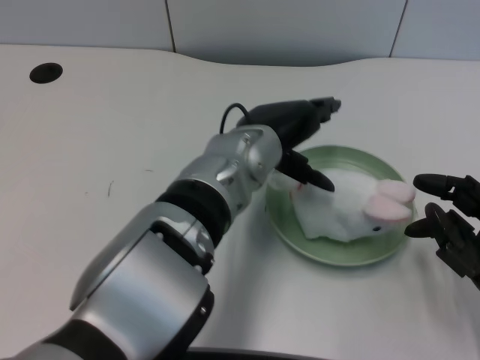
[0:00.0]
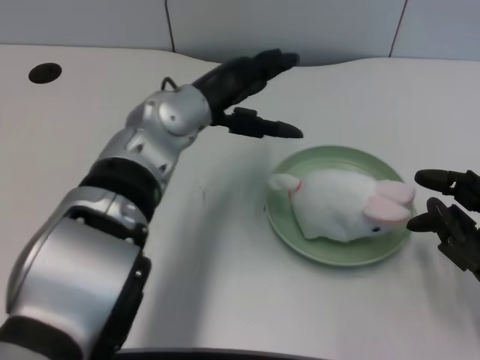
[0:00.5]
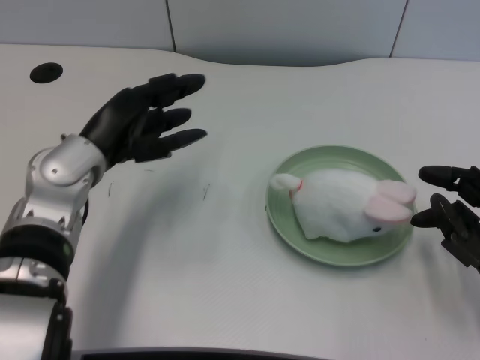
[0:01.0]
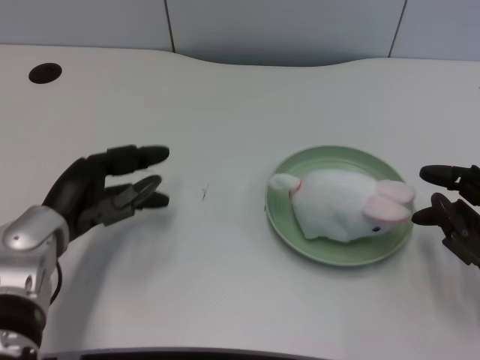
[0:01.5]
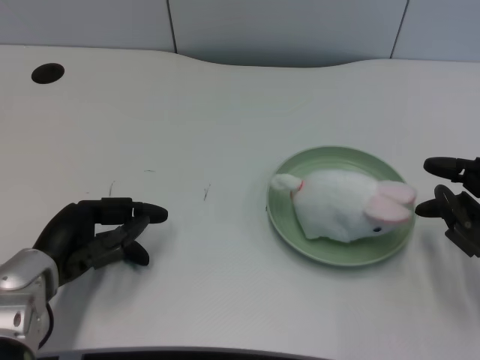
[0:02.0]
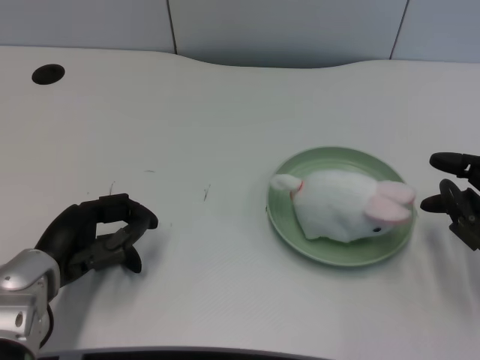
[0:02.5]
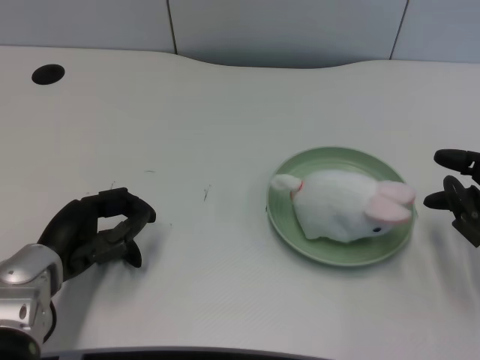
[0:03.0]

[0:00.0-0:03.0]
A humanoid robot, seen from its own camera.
Task of the whole recording: pick up the rabbit doll from the table and place it on the plate.
0:00.0 to 0:01.5: The left hand shifts roughly 20 cm to the left.
0:01.5 to 0:03.0: The hands move only a little.

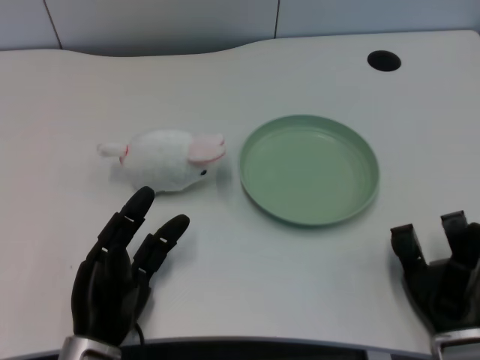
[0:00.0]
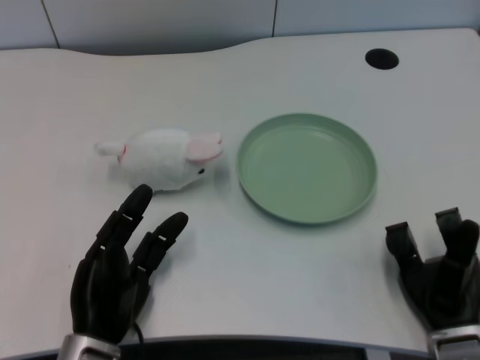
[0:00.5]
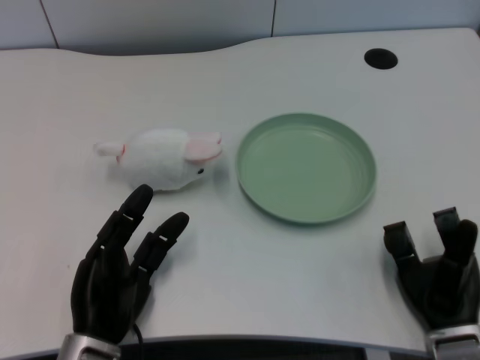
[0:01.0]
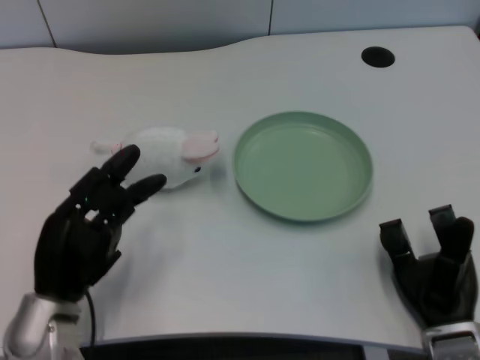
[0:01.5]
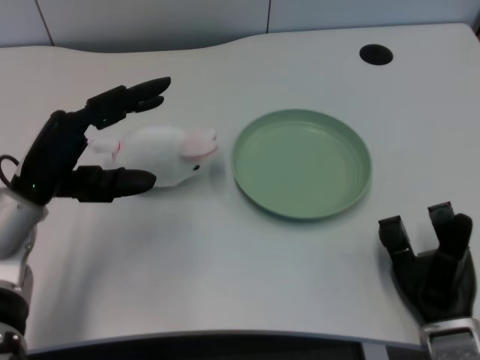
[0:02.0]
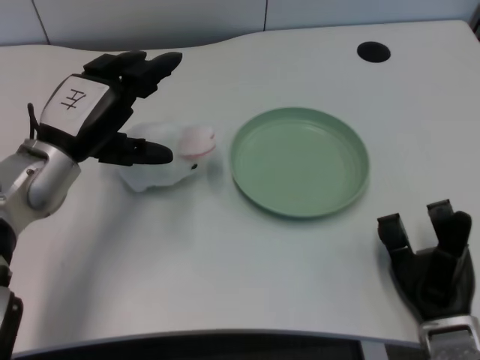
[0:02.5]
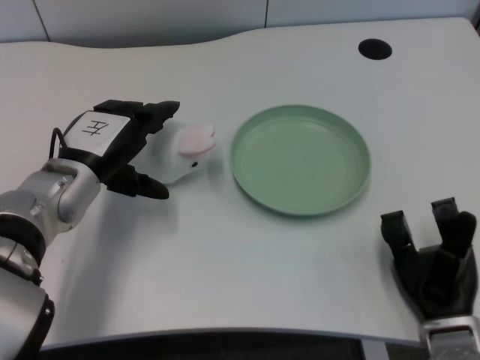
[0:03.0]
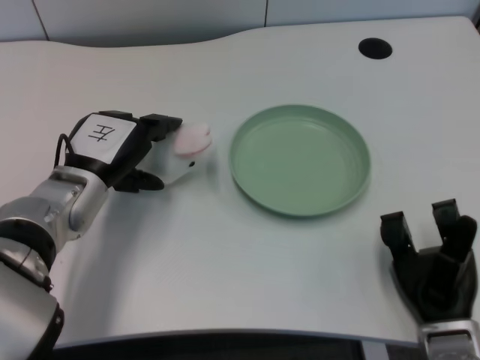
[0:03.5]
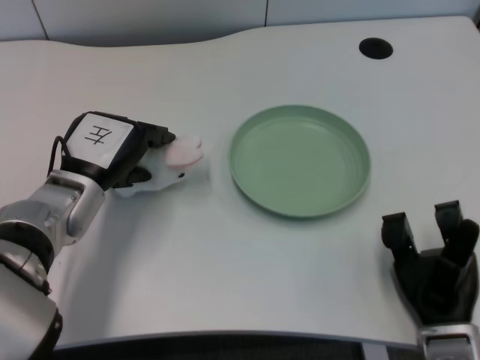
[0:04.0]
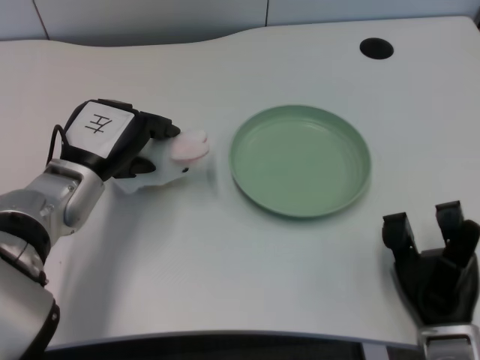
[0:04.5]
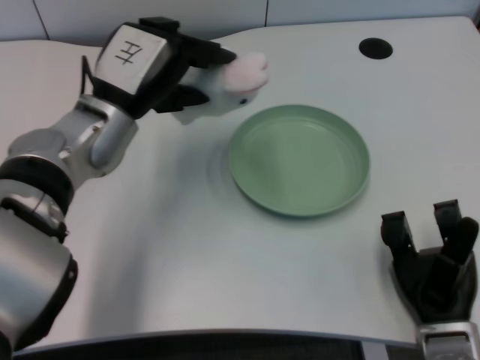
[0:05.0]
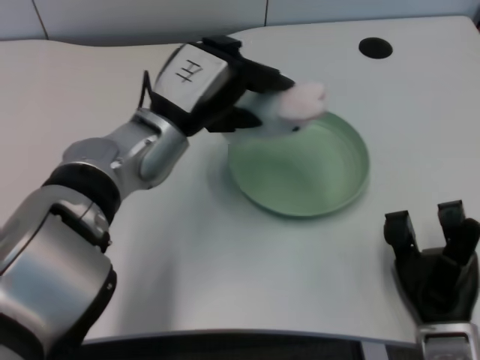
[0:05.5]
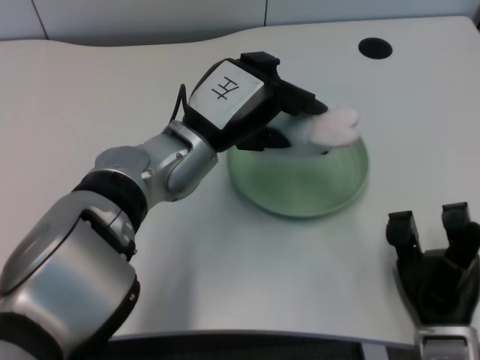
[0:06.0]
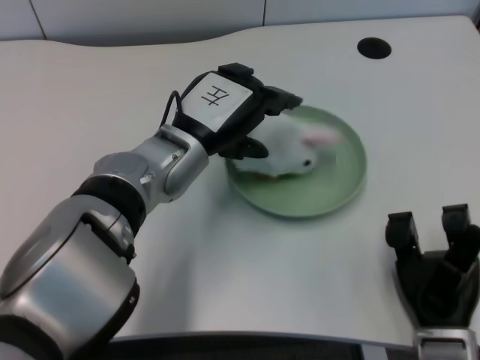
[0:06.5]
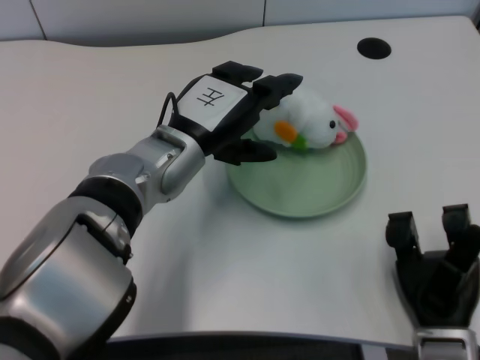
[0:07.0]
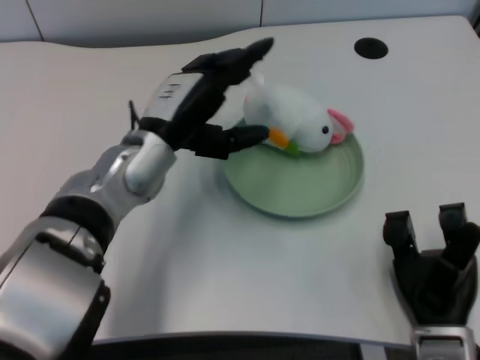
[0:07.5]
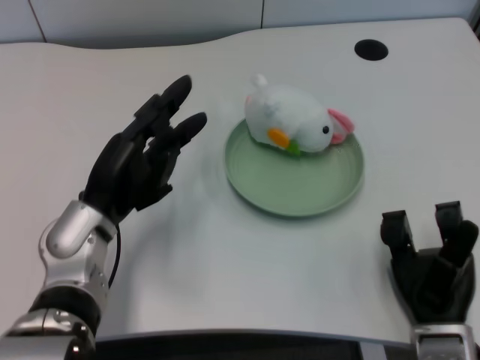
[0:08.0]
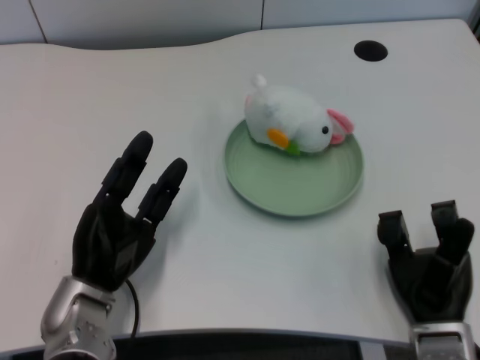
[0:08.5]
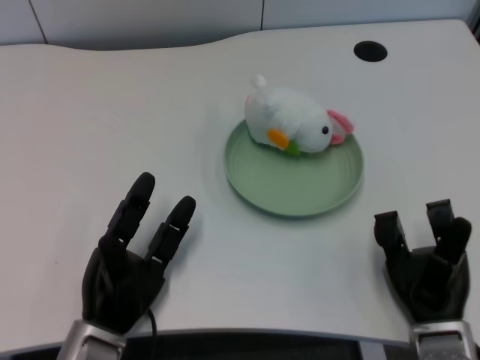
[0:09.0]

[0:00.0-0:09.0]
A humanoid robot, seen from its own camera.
Task of the whole recording: pick up the rabbit doll from the table and place it on the plate.
Step, 0:01.5 to 0:04.5: Grasp the rabbit doll with the left gripper.
Step, 0:05.0 to 0:06.5: Place the rabbit doll into the plate with the left gripper.
0:02.0 to 0:04.5: The left hand ends up approximately 5 cm from where it was.
0:04.5 to 0:07.0: The left hand moves to the right, some 10 cm.
0:07.0 to 0:09.0: The left hand heads downward, backward and to the left, covering roughly 20 cm.

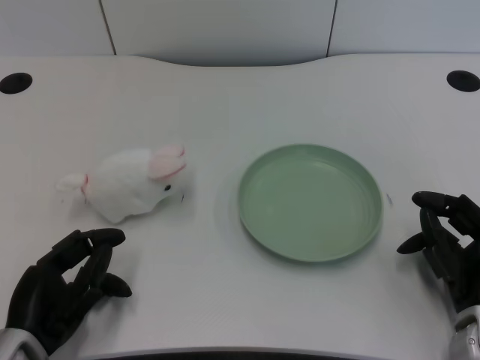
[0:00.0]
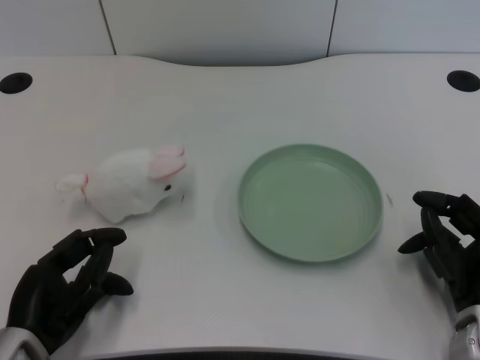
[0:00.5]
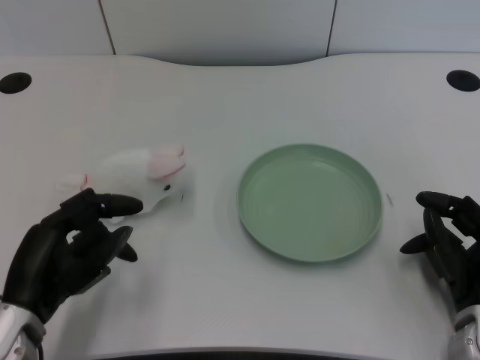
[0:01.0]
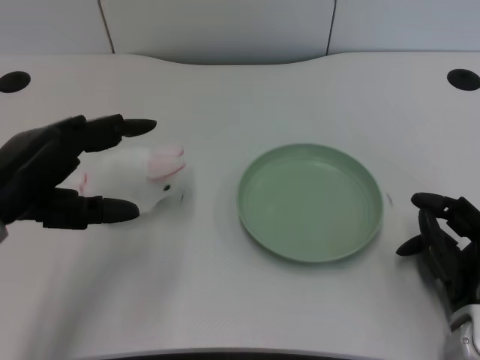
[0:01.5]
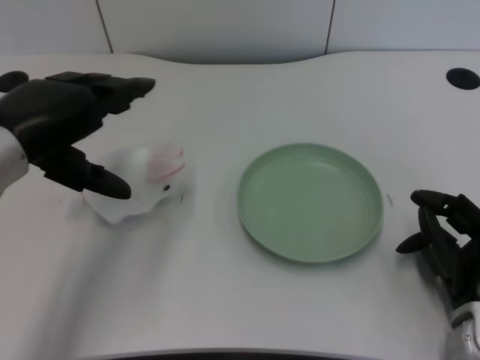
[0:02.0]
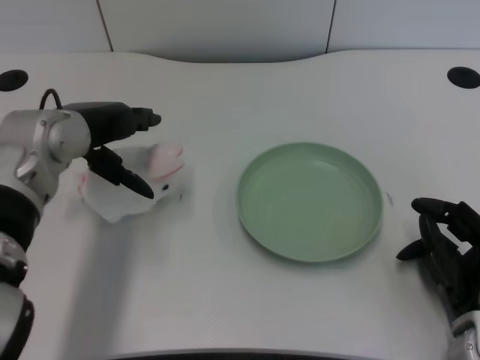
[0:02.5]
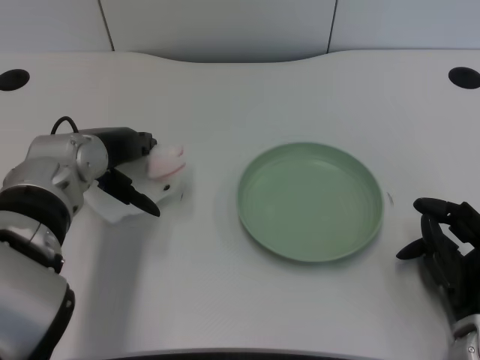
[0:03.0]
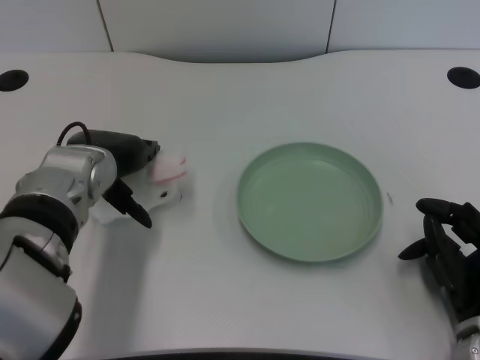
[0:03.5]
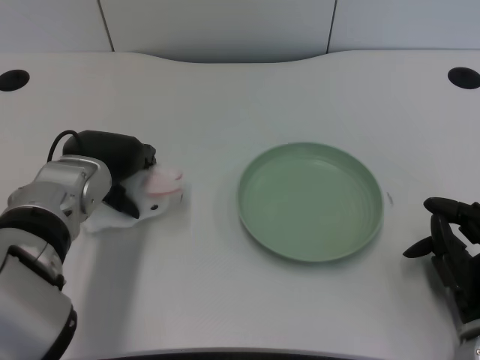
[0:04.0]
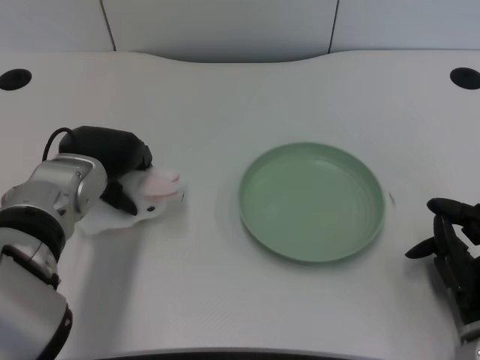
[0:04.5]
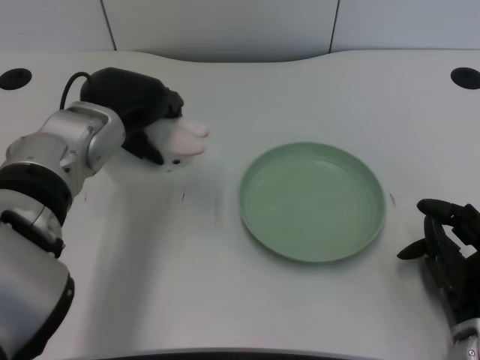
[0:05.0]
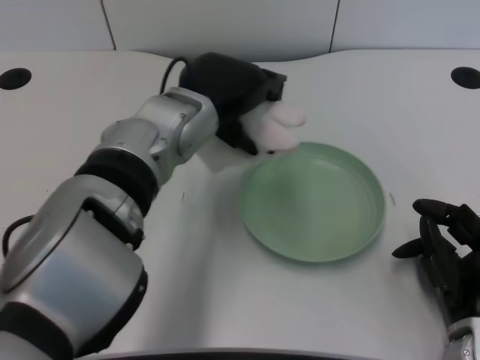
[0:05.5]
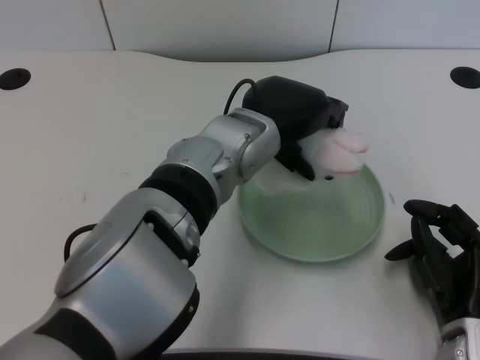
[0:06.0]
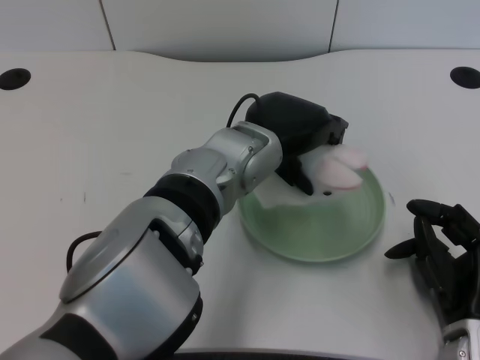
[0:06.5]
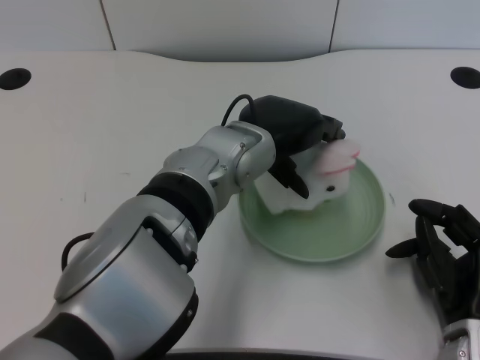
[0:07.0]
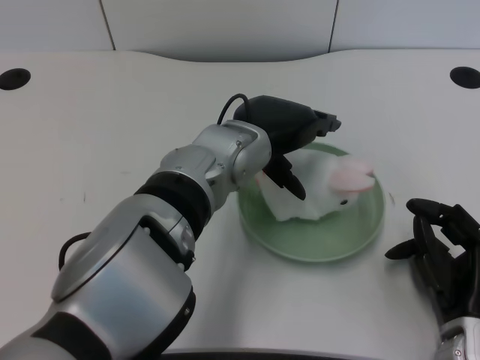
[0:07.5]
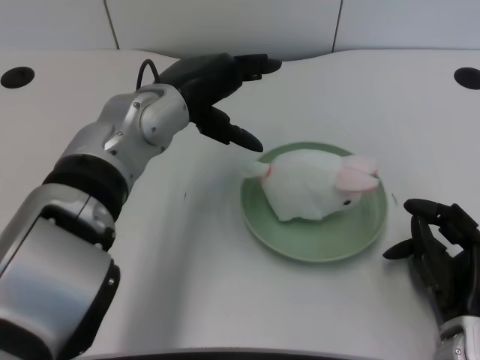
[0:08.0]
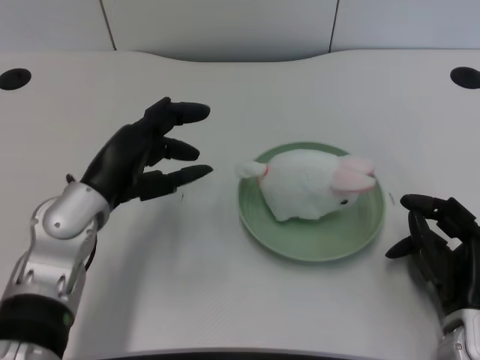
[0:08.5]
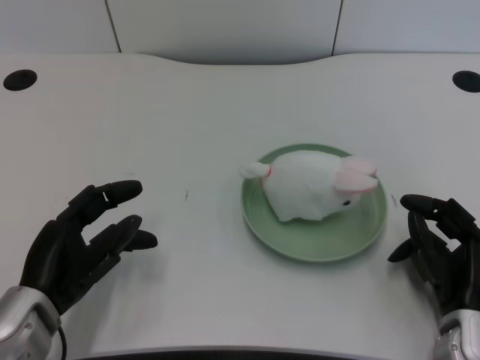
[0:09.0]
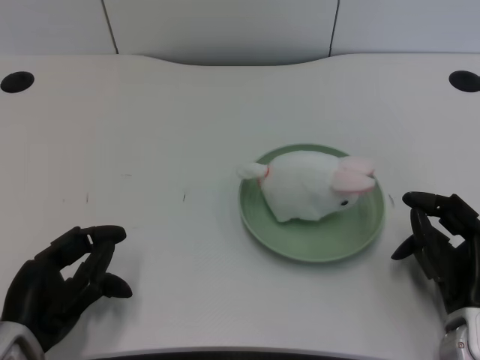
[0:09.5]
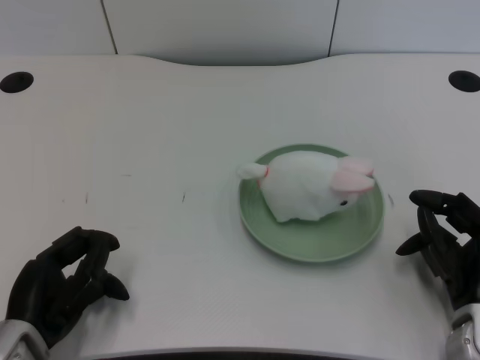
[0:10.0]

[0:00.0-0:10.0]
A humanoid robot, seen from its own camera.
Task of the whole recording: pick up the rabbit doll from the table and place it on the plate.
Step, 0:01.0 to 0:04.5: Grasp the rabbit doll with the left gripper.
Step, 0:05.0 to 0:07.0: Place the rabbit doll into the plate with the left gripper.
0:02.0 to 0:04.0: The left hand heads downward, to the right and forward, covering about 10 cm.
0:04.0 to 0:06.0: The left hand travels to the right by roughly 15 cm.
0:06.0 to 0:08.0: The left hand shifts about 10 cm to the left.
0:08.0 to 0:10.0: The left hand goes approximately 25 cm backward, downward and to the left.
